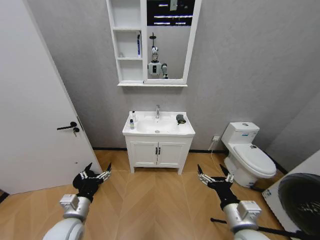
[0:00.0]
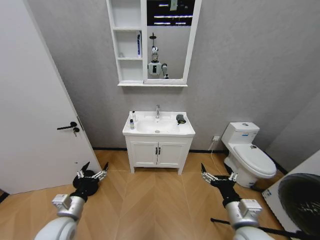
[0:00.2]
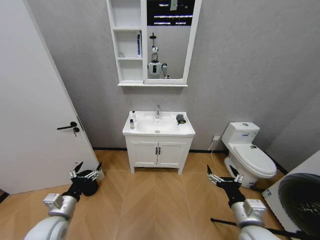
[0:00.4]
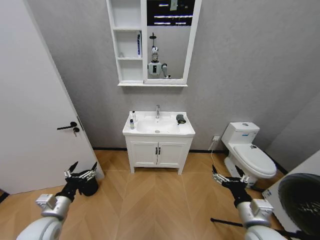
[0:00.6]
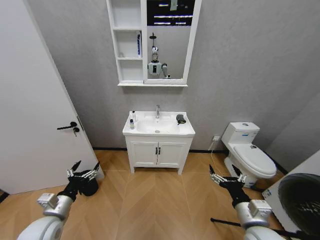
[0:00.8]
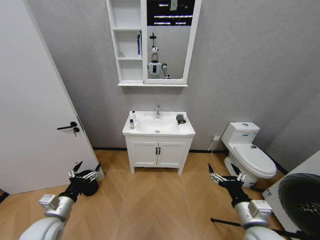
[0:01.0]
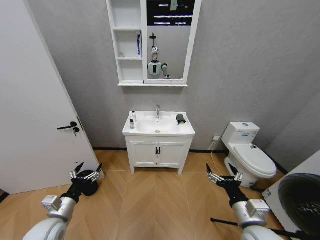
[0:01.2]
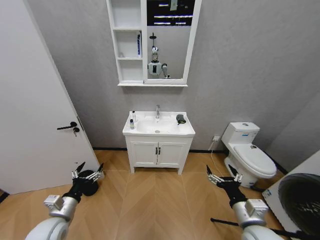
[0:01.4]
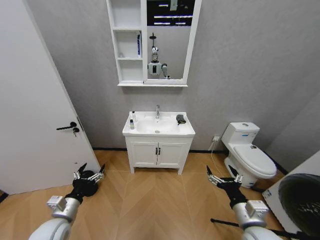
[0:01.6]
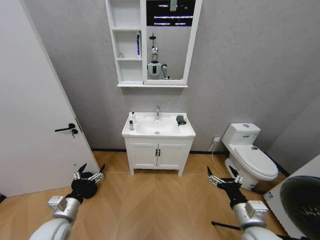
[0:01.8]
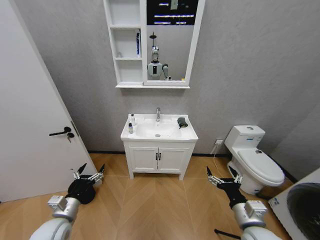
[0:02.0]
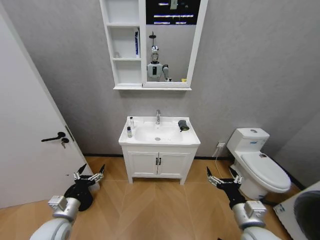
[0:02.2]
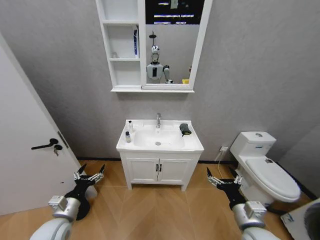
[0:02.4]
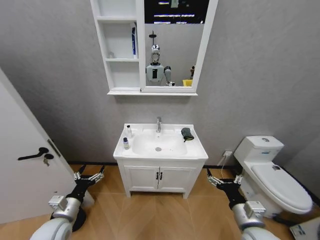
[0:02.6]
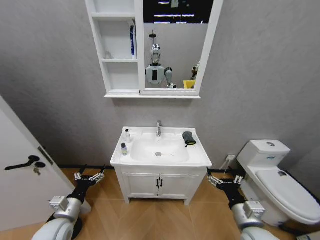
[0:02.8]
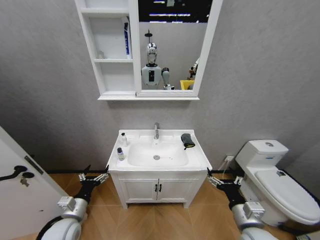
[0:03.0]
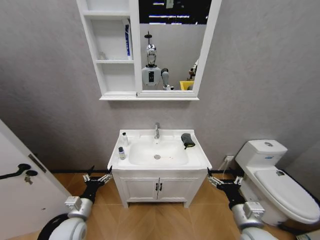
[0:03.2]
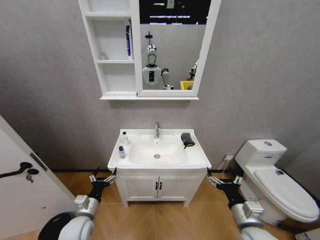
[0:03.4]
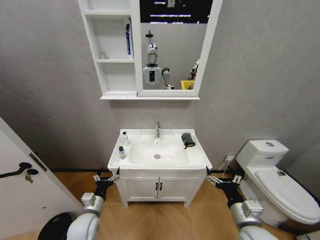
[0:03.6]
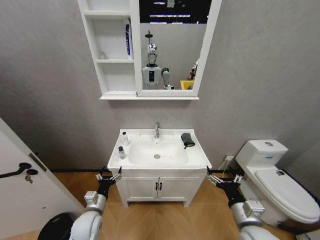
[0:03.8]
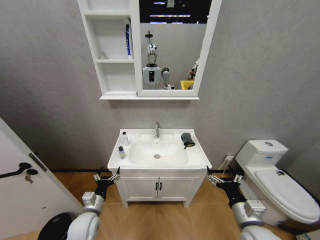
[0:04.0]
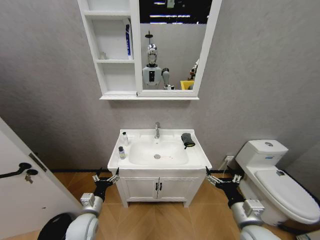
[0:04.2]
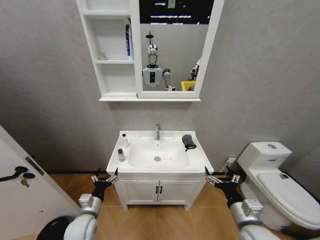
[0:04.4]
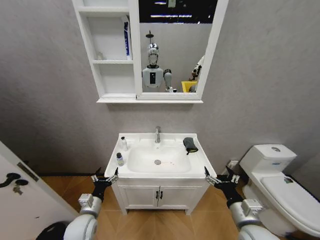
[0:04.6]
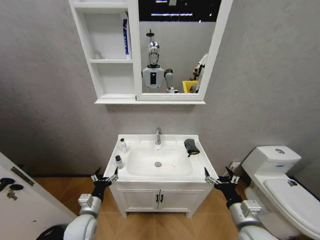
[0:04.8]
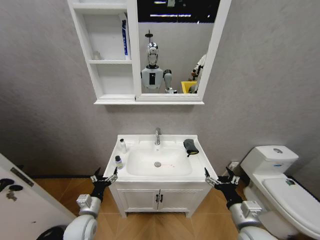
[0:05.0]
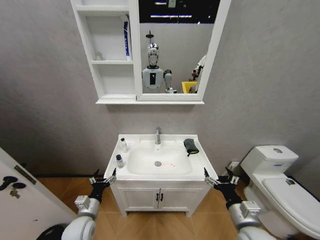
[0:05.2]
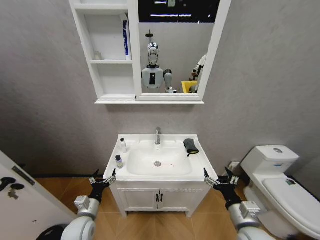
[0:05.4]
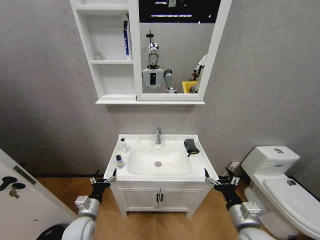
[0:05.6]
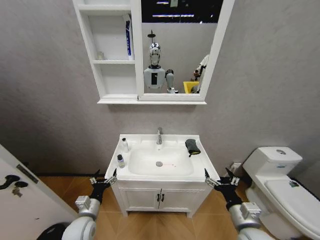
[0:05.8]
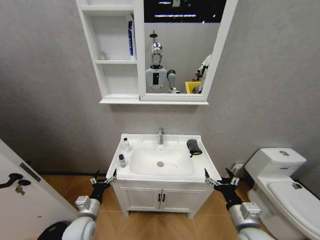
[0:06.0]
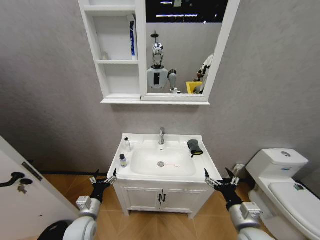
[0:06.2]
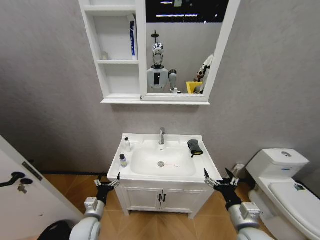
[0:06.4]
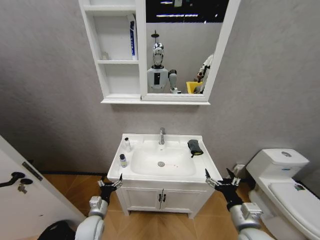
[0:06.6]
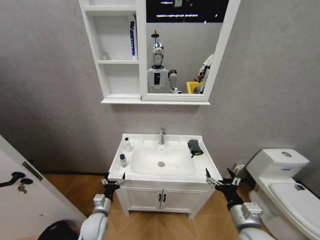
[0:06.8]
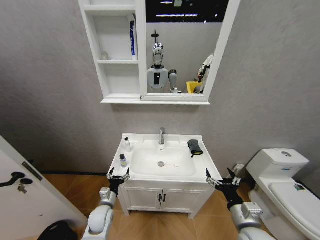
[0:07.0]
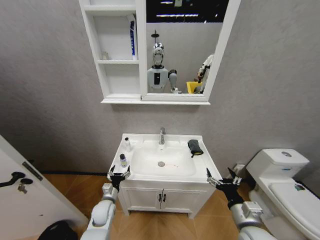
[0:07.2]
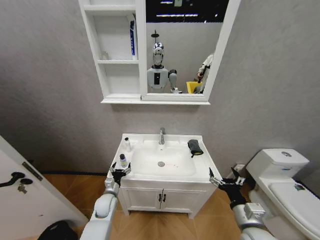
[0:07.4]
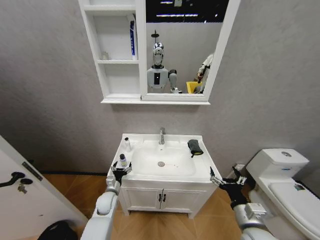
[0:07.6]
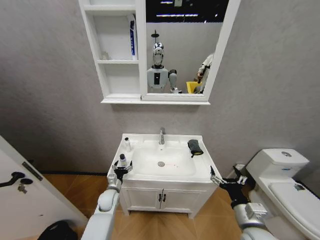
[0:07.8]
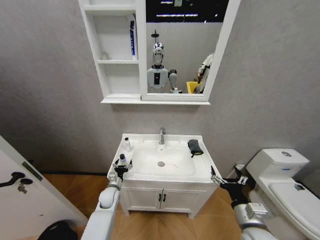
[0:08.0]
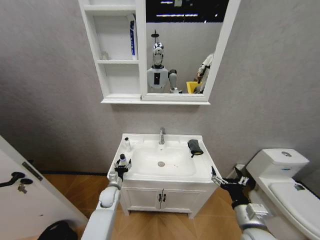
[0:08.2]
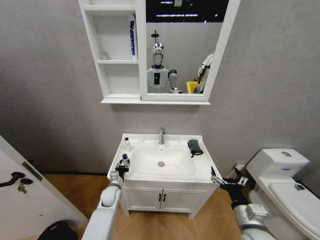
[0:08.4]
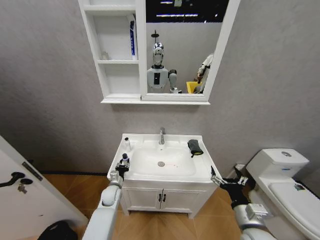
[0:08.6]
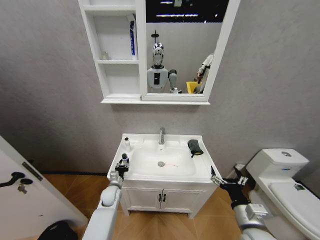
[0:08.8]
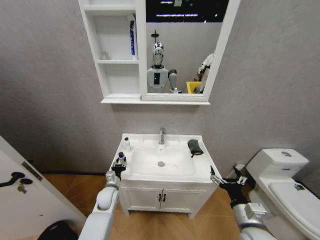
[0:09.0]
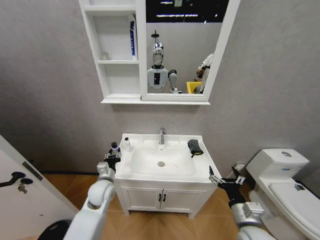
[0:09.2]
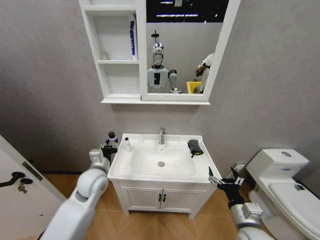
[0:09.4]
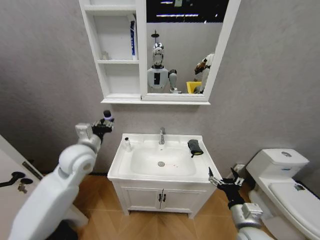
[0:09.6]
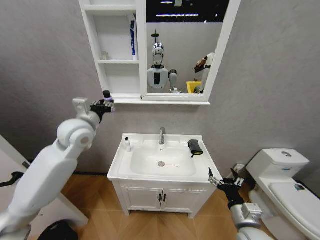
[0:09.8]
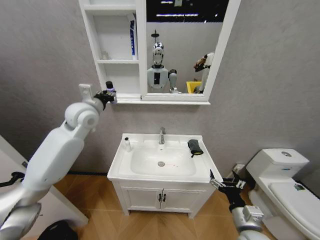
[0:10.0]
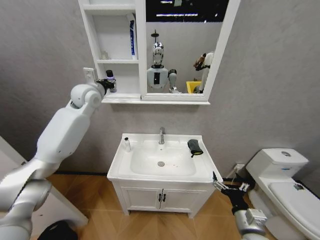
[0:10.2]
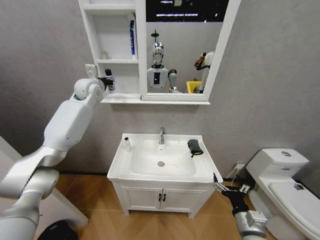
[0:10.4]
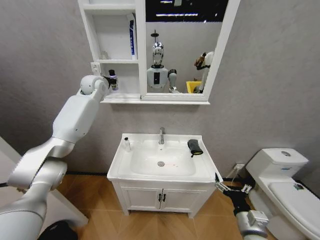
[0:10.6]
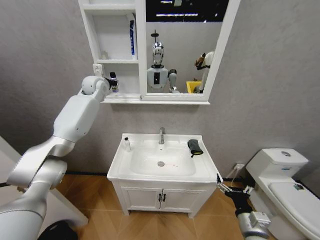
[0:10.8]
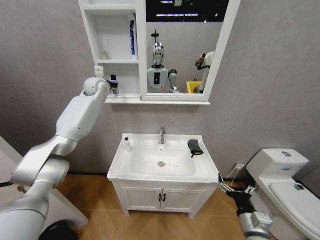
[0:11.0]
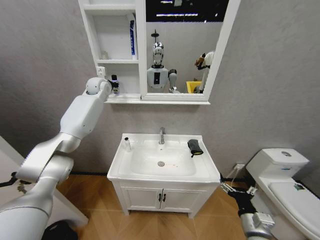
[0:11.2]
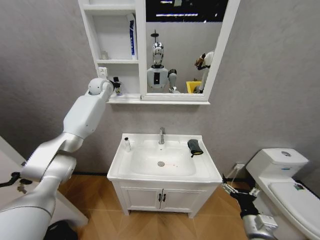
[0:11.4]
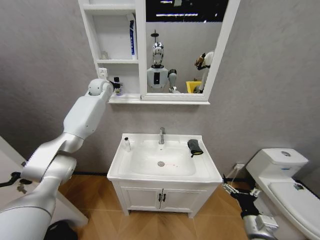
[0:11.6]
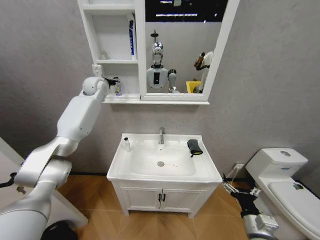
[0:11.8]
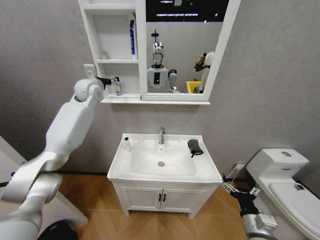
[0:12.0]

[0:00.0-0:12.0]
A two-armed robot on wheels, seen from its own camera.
Task of the whole recording: Move facial cleanser and shampoo from washbasin to cabinet, then wipe washbasin with towel.
0:03.0 to 0:04.4: The left gripper changes place by some 5 cm.
0:06.0 to 0:07.6: The left gripper goes about 15 cm forward and downward.
0:07.6 to 0:09.0: The left gripper closes.
0:09.0 to 0:10.4: The left gripper is displaced upward and forward by about 50 cm.
0:10.4 to 0:12.0: The left gripper travels backward by about 5 cm, and opens its fingers.

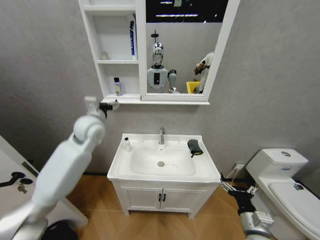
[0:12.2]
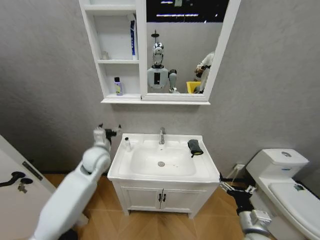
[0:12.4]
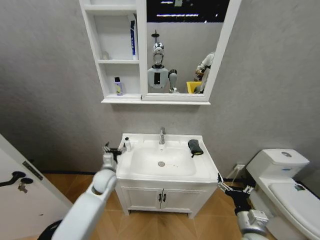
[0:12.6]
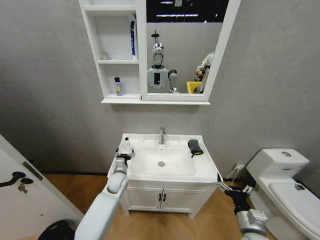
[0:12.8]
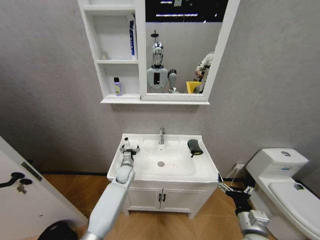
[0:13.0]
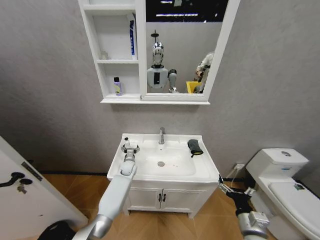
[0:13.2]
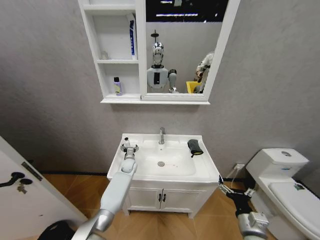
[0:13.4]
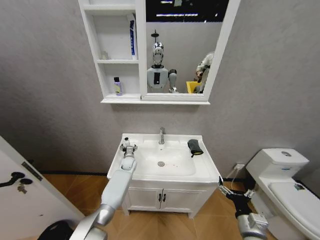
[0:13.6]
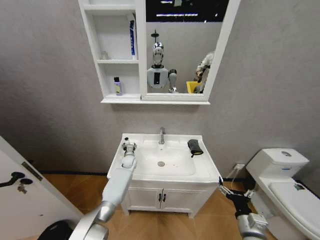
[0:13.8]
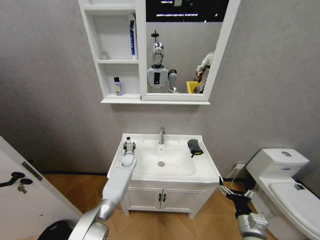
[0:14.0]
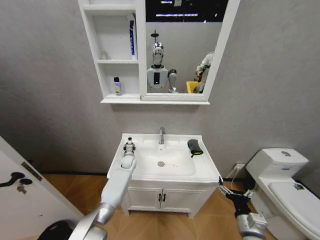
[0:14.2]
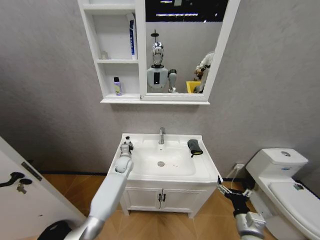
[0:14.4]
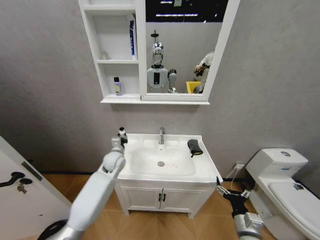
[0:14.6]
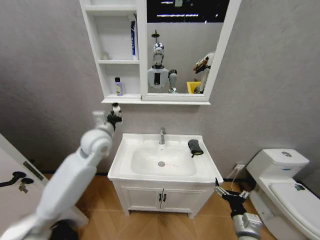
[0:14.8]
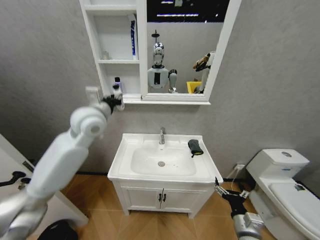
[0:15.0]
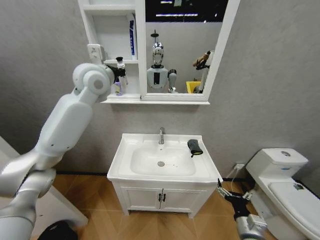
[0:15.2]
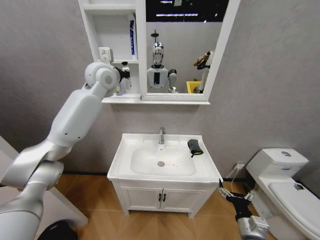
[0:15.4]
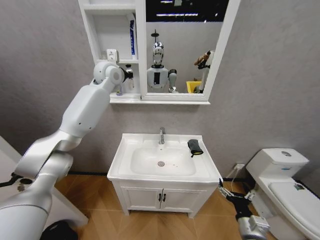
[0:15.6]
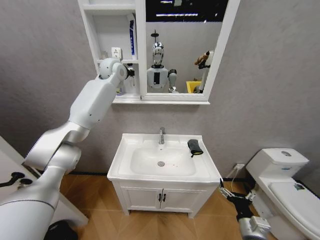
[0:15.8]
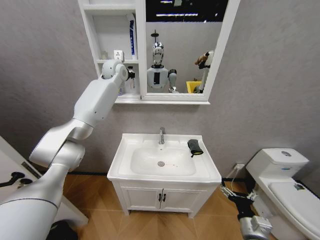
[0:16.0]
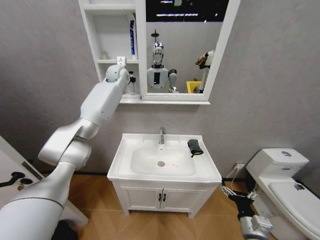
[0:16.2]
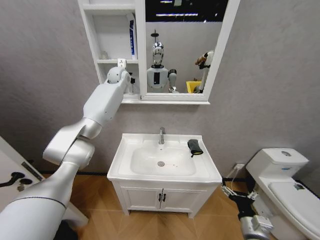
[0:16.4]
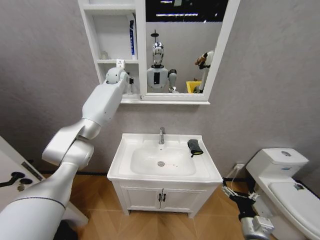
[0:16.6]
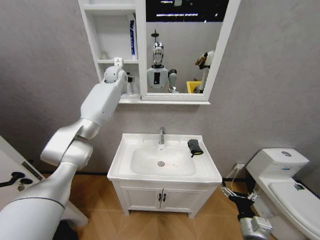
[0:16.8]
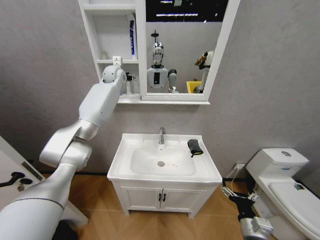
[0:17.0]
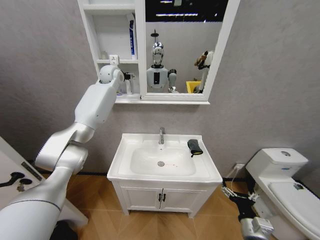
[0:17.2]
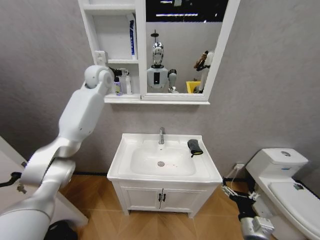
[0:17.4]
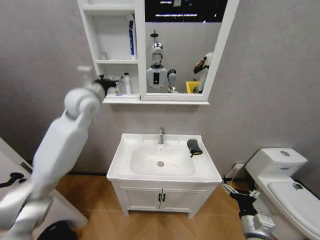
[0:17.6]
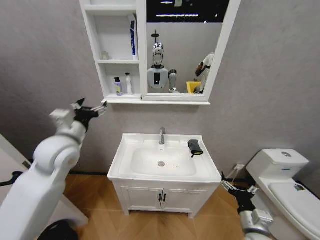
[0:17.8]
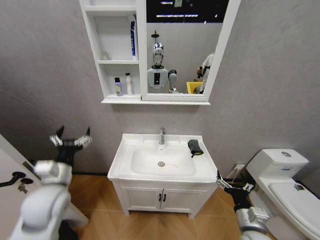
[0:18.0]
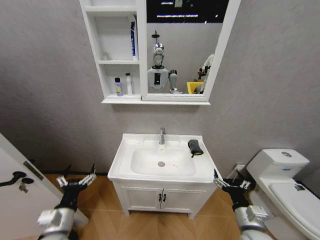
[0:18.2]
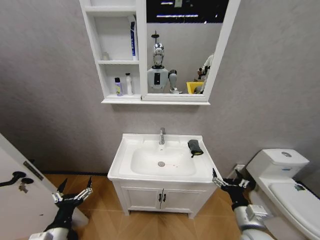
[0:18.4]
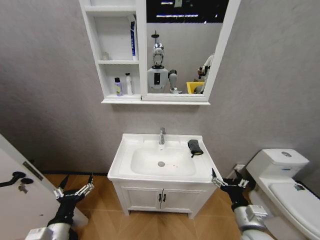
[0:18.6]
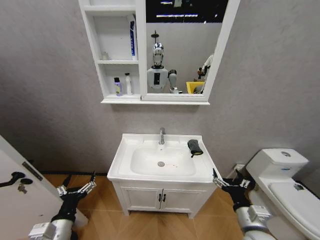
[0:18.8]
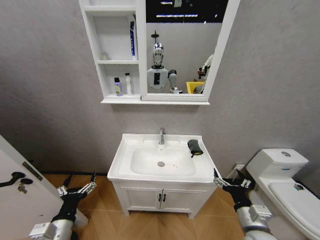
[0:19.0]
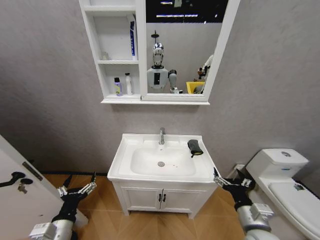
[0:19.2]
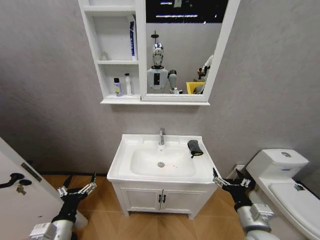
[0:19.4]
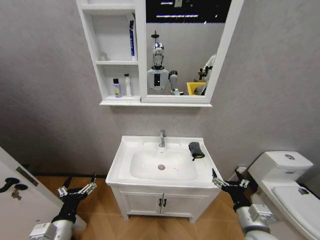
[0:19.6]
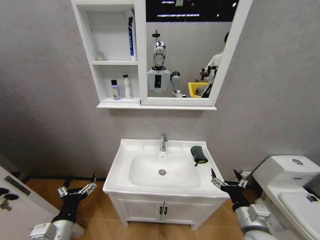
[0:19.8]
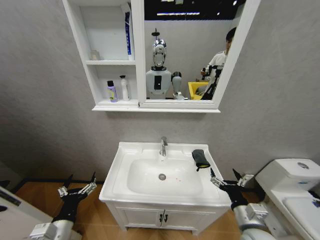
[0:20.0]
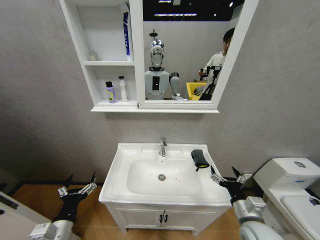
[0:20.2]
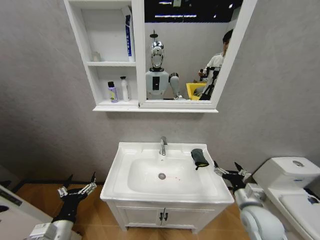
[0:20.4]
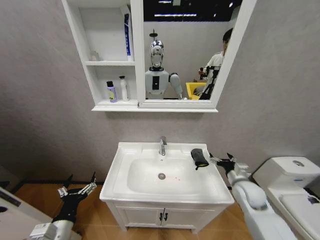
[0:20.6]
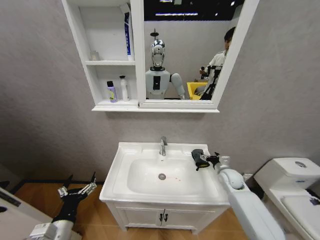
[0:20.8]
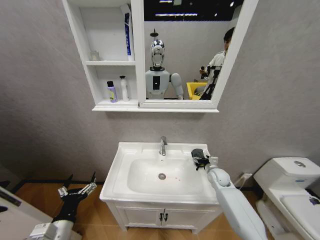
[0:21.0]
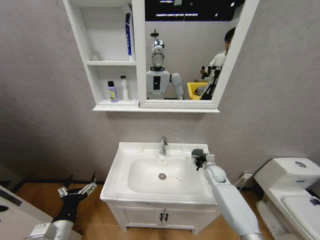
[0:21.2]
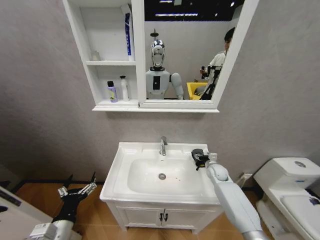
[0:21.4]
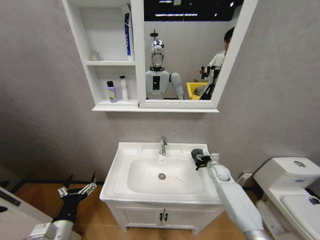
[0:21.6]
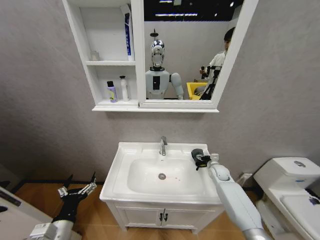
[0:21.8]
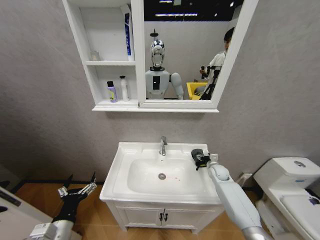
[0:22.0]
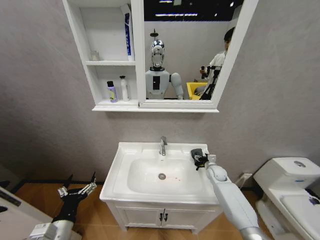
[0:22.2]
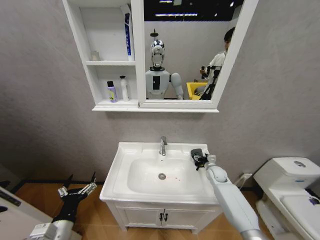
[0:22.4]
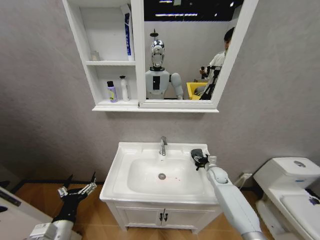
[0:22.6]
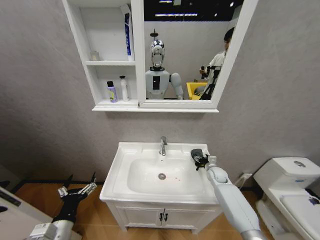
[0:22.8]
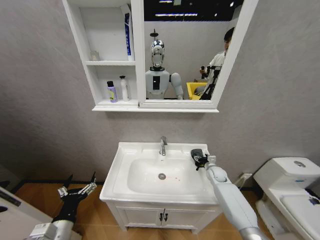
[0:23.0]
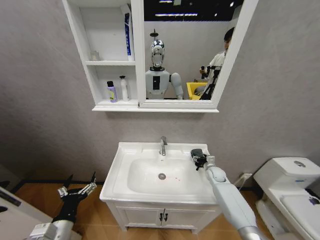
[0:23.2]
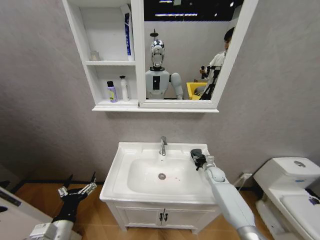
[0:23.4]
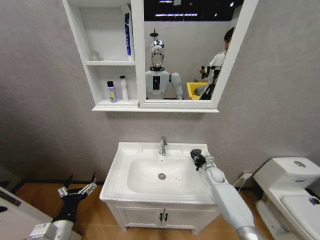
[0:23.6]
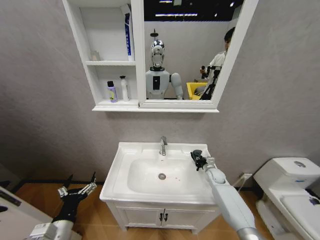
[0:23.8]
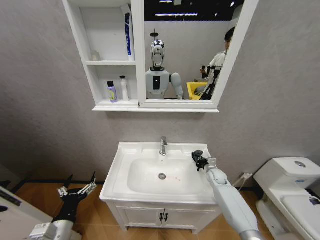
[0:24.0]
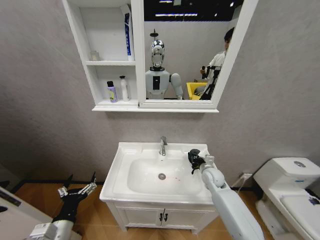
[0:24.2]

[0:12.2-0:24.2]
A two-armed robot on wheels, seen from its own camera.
Task of the whole recording: Move facial cleanser and shampoo from washbasin to cabinet, then wipe washbasin with towel.
0:12.2 to 0:13.8: The left gripper is displaced downward by approximately 35 cm.
0:13.8 to 0:15.2: The left gripper goes roughly 50 cm upward, and closes up.
0:15.2 to 0:16.6: The left gripper travels forward by roughly 20 cm.
0:16.6 to 0:18.2: The right gripper changes place by about 5 cm, while the left gripper goes some 60 cm backward and downward, and opens.
0:19.8 to 0:21.2: The right gripper moves forward, roughly 30 cm.
0:21.2 to 0:22.6: The grippers move only a little.
0:22.6 to 0:24.2: The right gripper shifts about 5 cm to the left, and closes.
